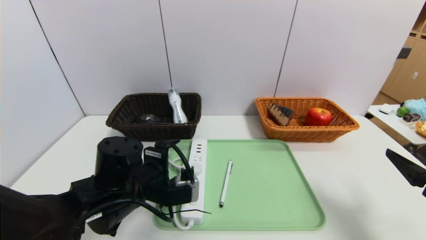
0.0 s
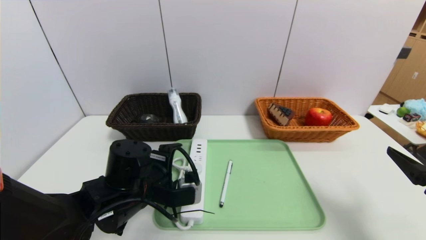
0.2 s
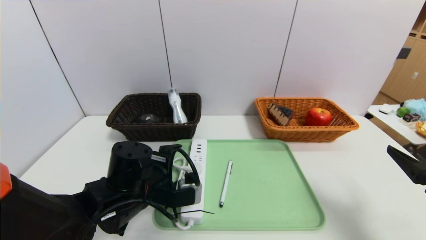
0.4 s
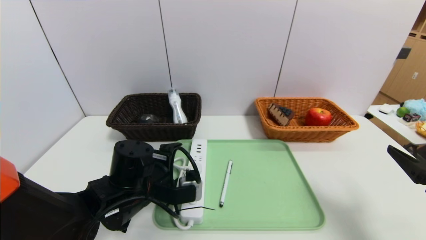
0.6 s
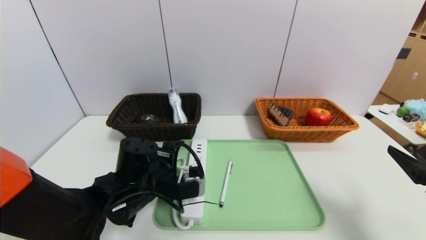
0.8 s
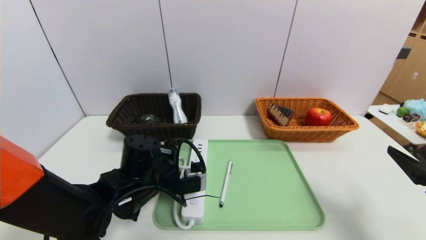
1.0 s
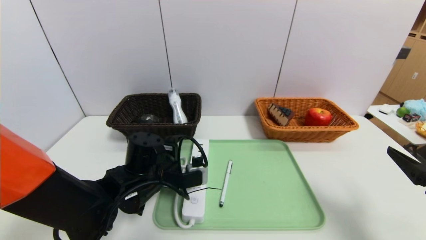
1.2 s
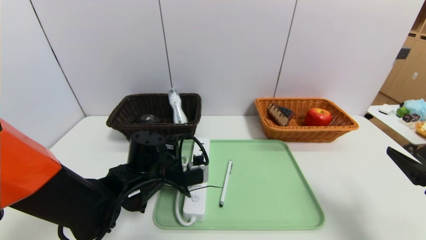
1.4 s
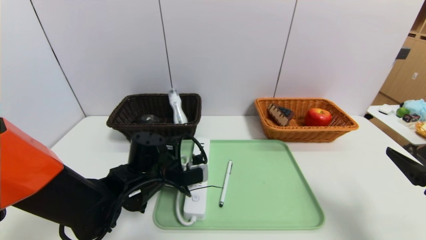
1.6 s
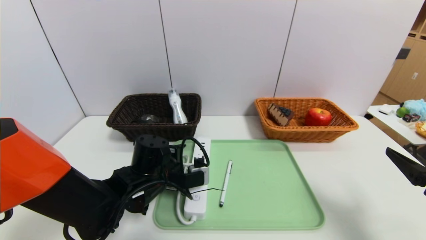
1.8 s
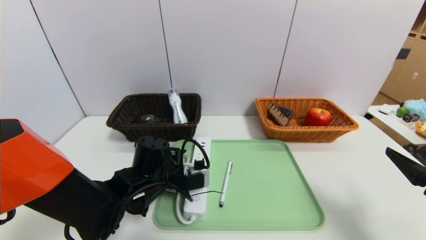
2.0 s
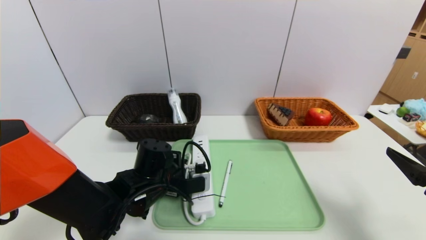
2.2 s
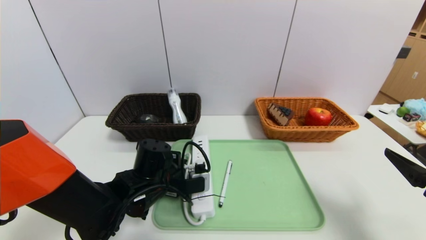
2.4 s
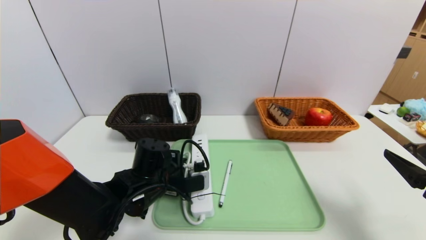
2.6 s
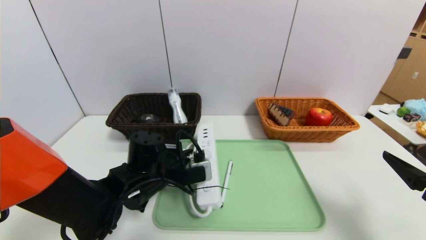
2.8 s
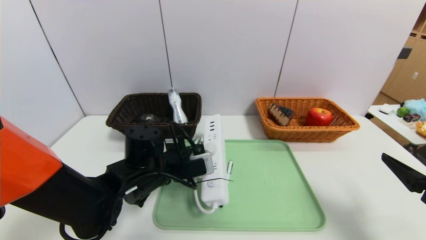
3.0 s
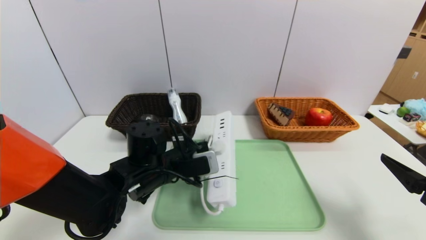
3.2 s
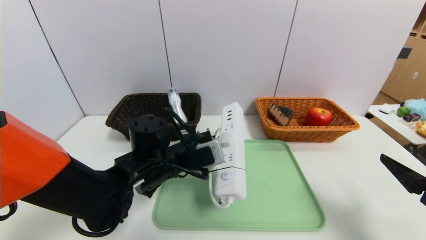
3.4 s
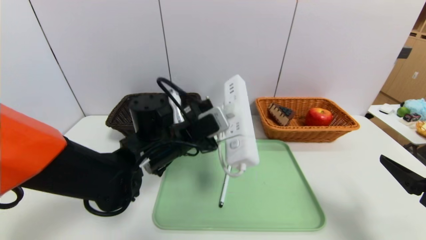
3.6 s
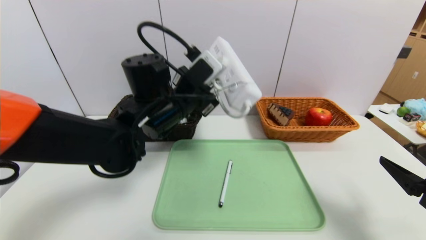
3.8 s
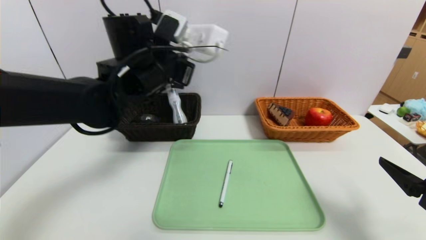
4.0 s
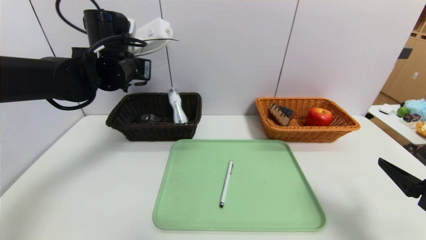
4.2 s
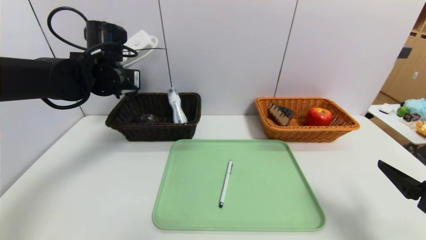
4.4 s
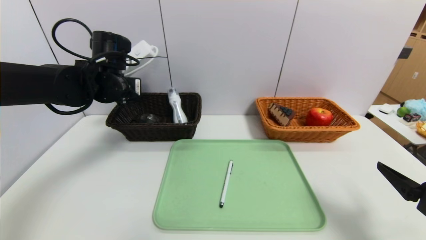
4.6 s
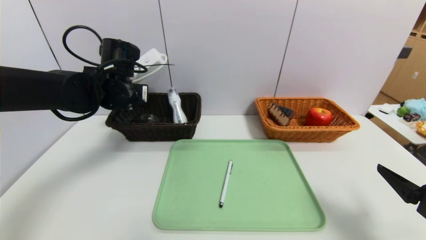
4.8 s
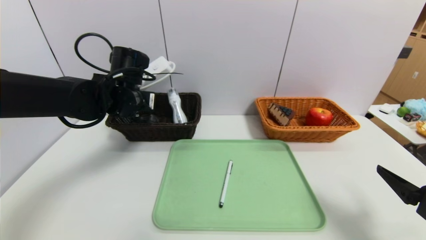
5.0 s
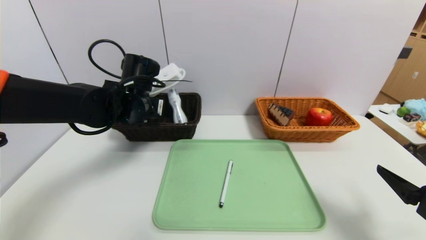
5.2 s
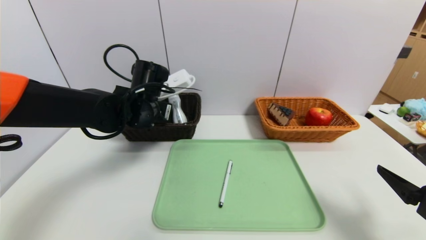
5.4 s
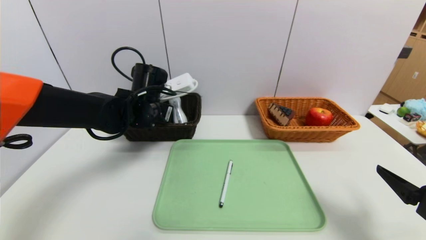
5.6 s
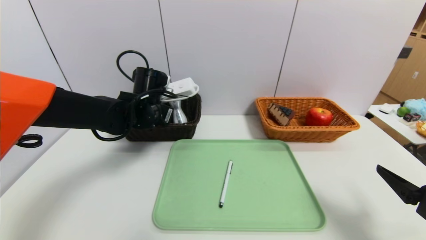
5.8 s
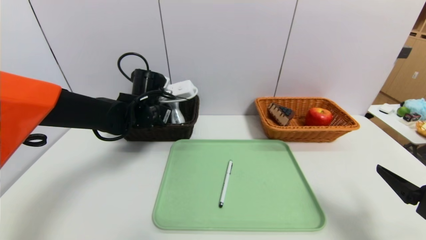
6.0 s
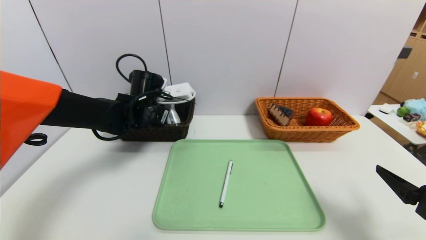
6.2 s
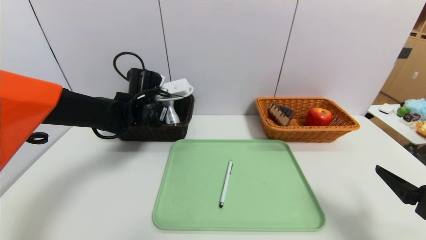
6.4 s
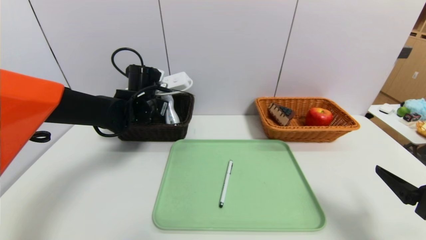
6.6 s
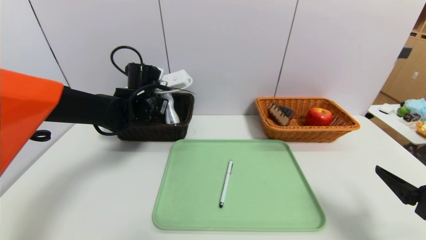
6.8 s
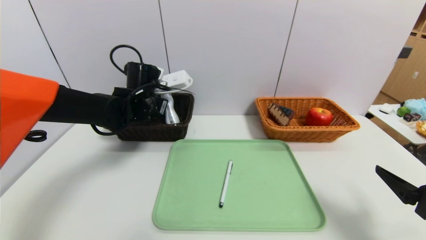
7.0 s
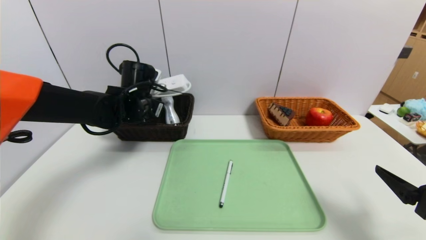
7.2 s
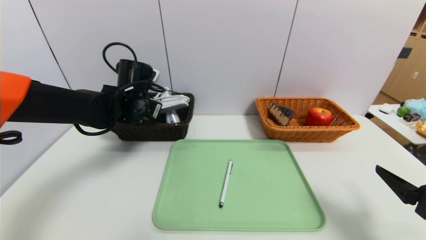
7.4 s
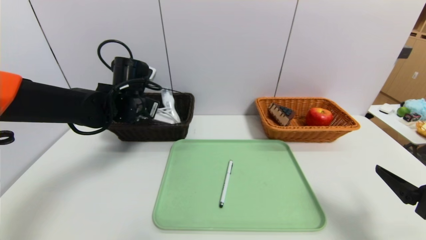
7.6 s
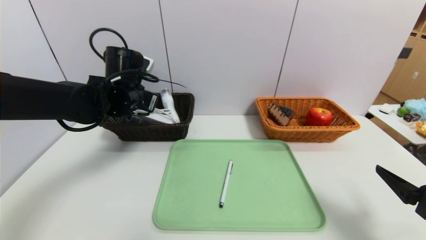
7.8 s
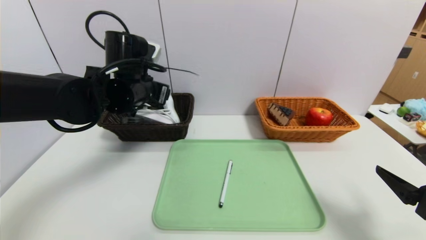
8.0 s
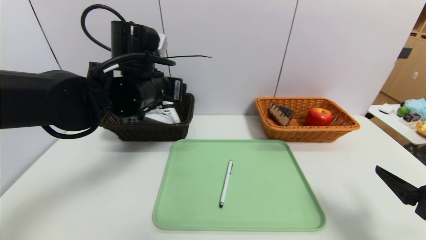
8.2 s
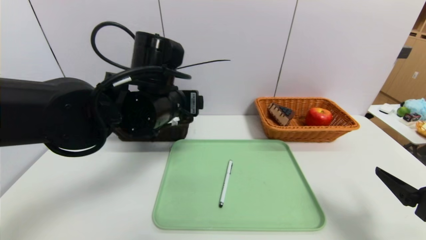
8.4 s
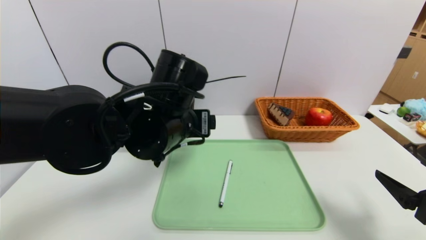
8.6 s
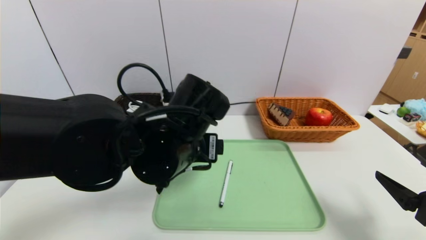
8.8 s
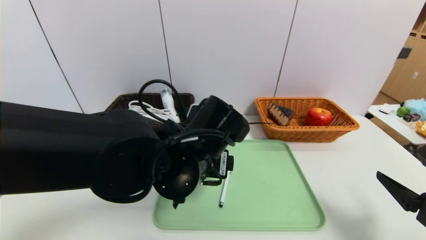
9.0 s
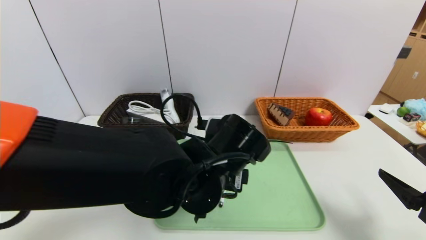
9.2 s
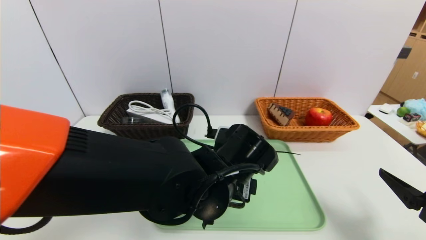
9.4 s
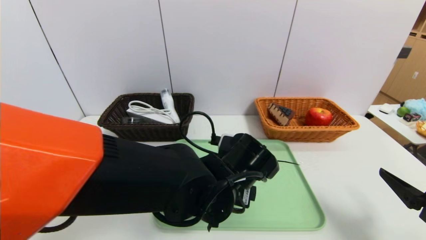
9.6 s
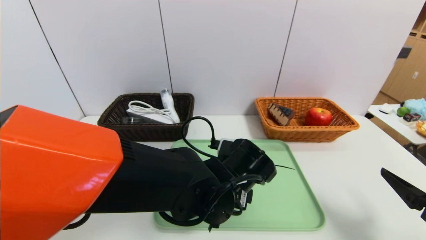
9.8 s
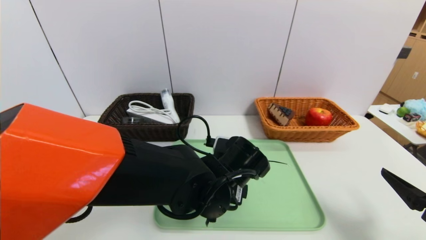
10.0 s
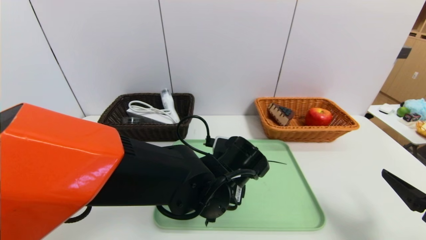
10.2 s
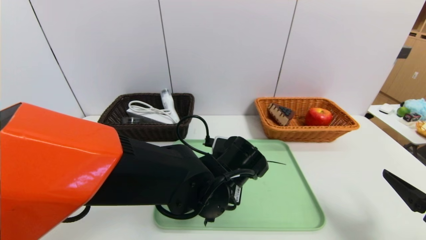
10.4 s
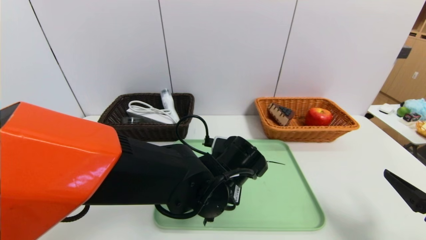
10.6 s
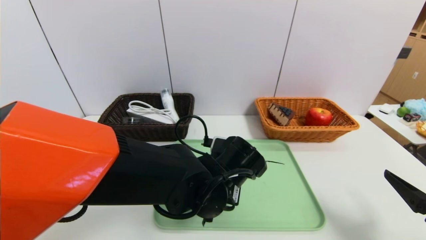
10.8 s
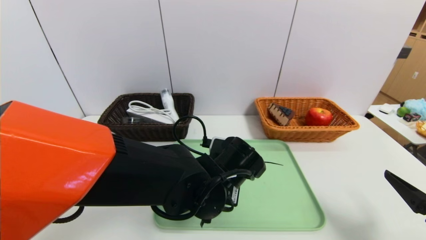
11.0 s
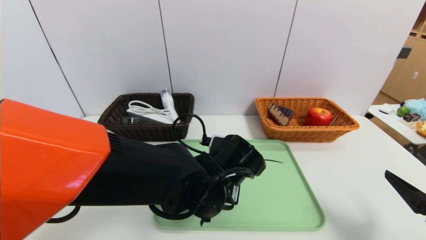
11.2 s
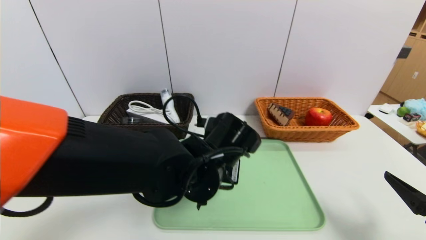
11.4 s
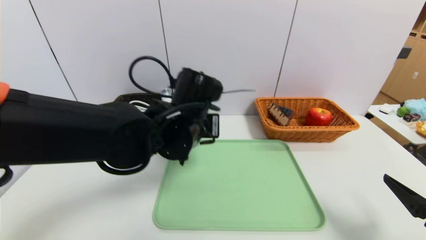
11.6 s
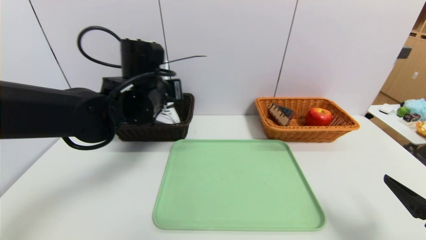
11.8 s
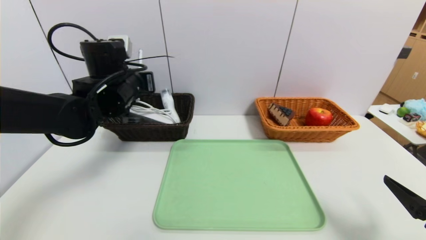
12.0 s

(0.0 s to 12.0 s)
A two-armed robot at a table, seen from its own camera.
Task of the whole recording: place the food in the right basket with the right gripper, and place the non food items in the left basket with the left gripper.
Step, 0.0 s - 8.2 s: Grasp the power strip and put it in the left basket.
0.0 s - 1.6 s: The left gripper ends up some 5 cm from where it was.
1.6 s - 3.0 s: The left gripper closes its fingers.
3.0 s - 4.4 s: The left gripper travels upward, forward and to the left by some 20 cm.
4.4 s - 6.0 s: The left gripper heads downward, covering some 10 cm.
6.0 s - 7.6 s: The left gripper opens its fingers.
7.6 s - 9.0 s: The left gripper heads backward and to the right, covering some 20 cm, and opens its fingers.
9.0 s - 10.4 s: The left gripper travels downward by some 5 cm, and closes.
10.4 s - 12.0 s: The left gripper travels to the left, forward and upward by roughly 25 cm, and closes.

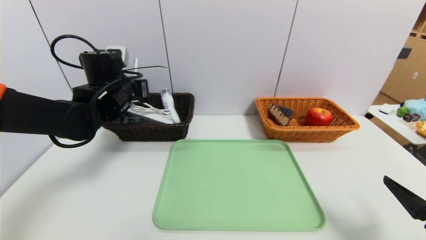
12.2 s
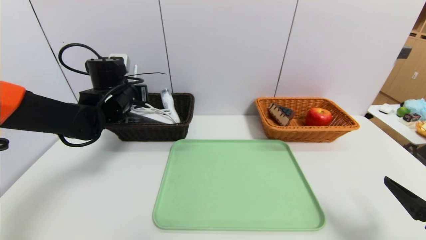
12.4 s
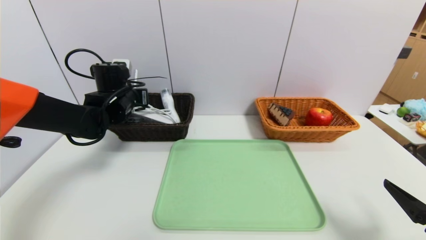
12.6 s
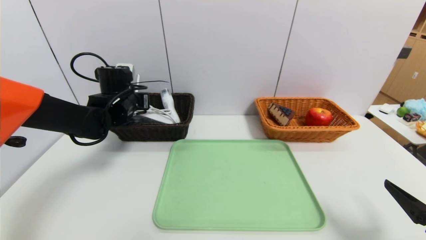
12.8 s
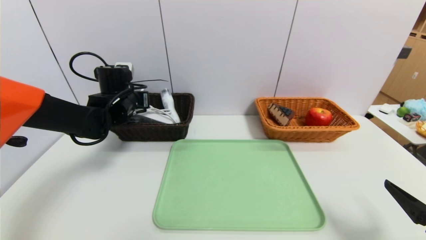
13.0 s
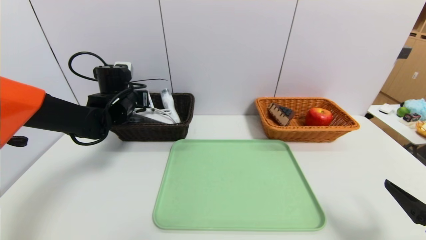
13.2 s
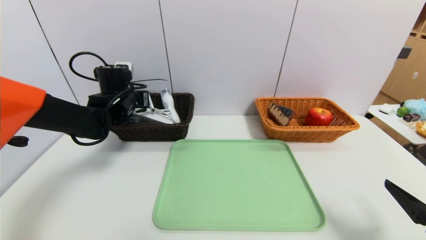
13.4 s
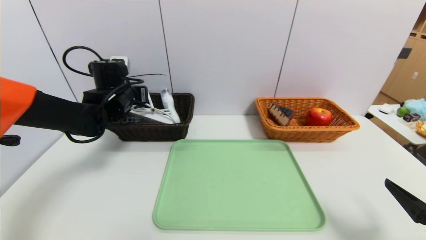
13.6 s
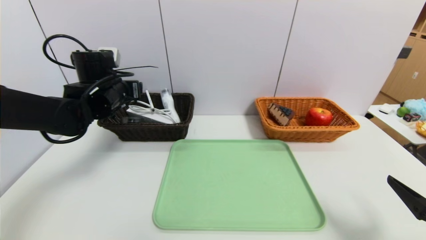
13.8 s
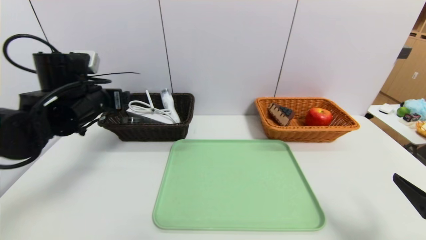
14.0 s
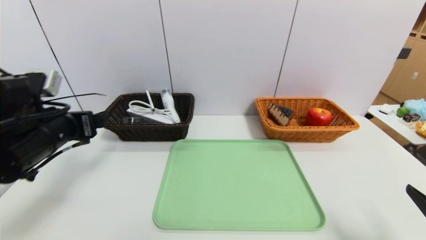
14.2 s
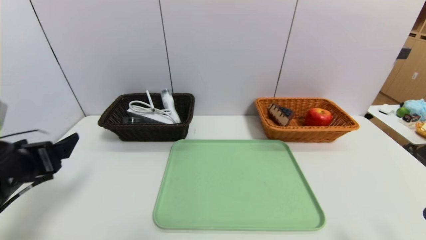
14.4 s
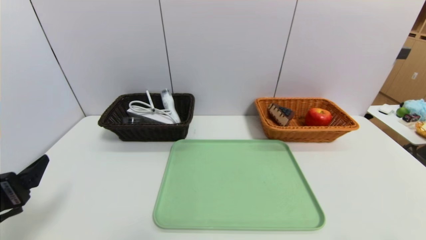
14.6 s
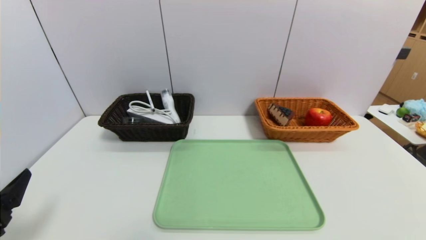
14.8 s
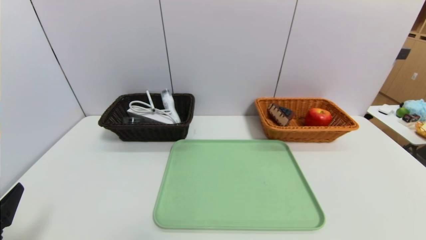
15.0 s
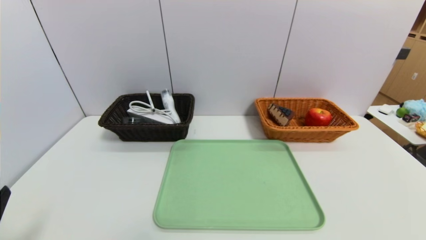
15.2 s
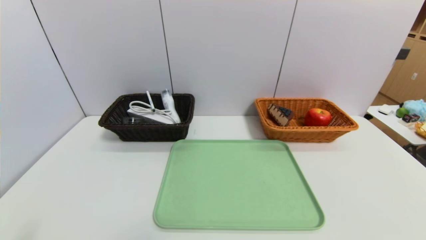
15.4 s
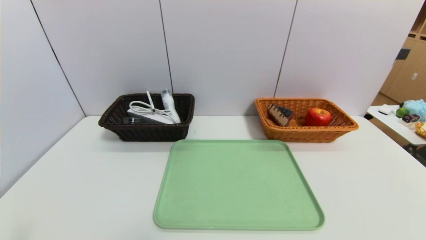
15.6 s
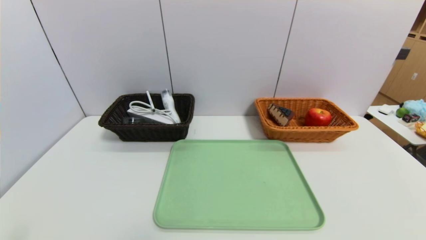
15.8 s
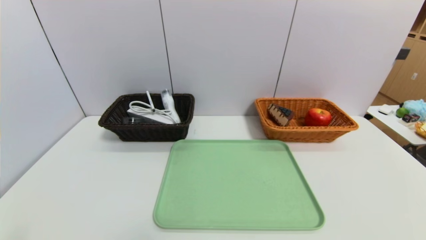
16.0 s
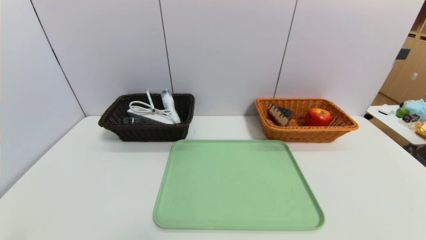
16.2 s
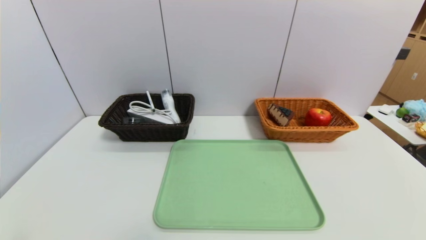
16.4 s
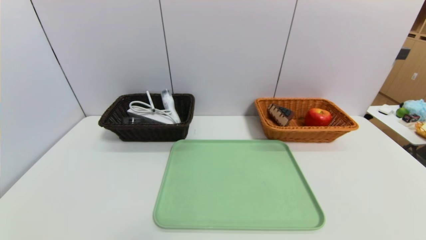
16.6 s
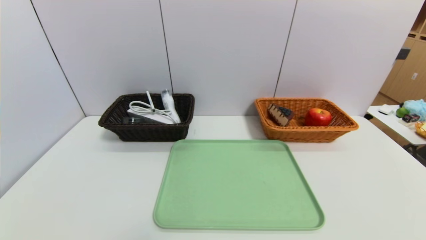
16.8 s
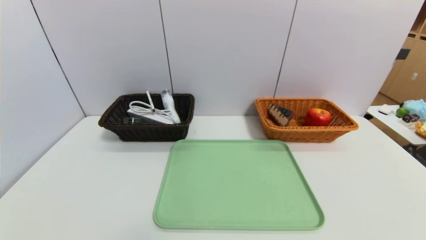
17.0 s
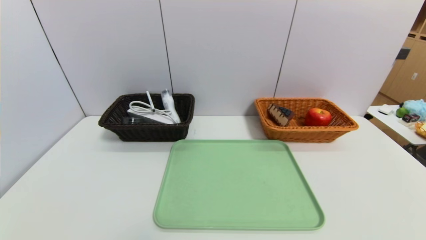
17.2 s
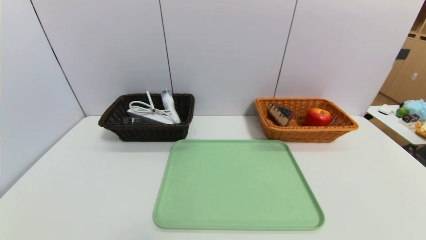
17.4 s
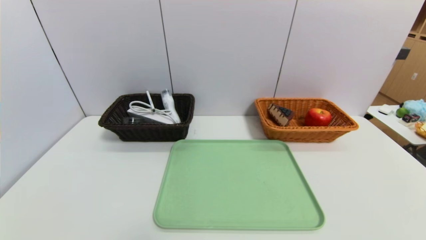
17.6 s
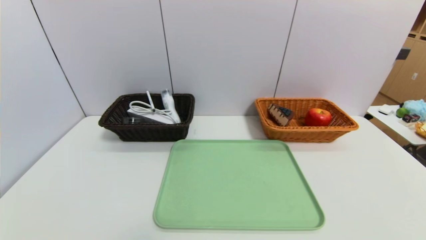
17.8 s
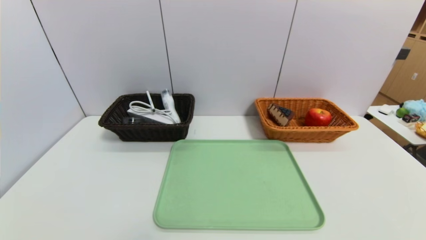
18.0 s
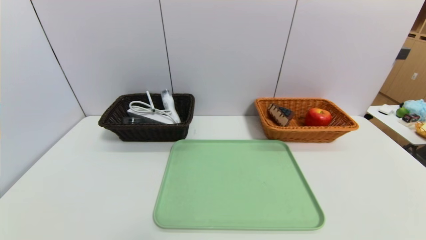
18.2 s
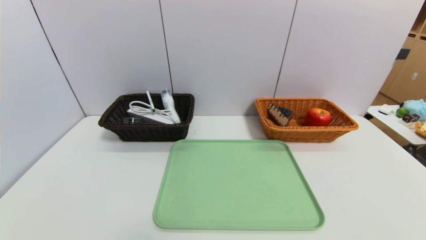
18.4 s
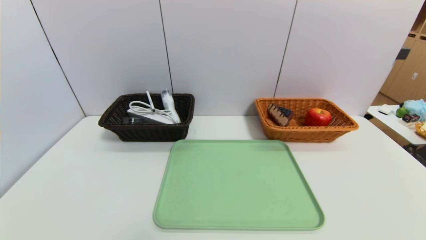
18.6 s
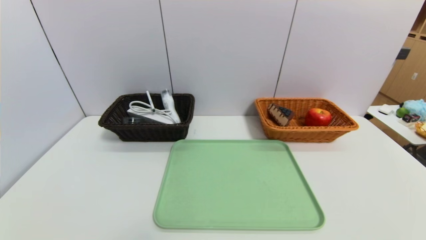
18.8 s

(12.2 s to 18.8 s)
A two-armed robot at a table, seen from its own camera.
Task of the whole recording: place the food in the right basket with the right gripper, and place the non food items in the left basket with the left gripper.
Step, 12.2 s - 15.0 s: Grasp the ballpoint pen and put it in the left basket.
12.2 s - 13.8 s: The left gripper opens its fingers.
13.8 s - 15.4 s: The left gripper travels backward by approximately 35 cm, while the right gripper shifts some 15 cm backward.
